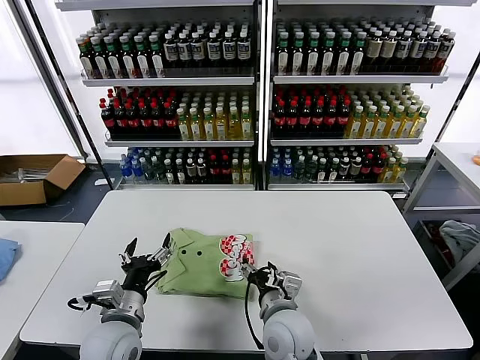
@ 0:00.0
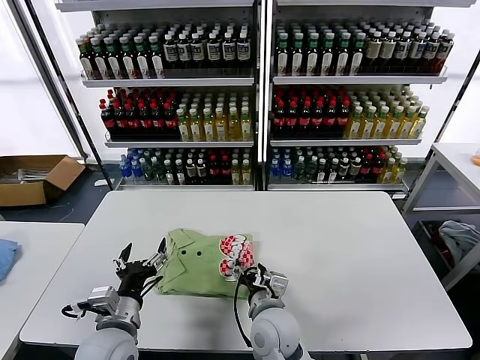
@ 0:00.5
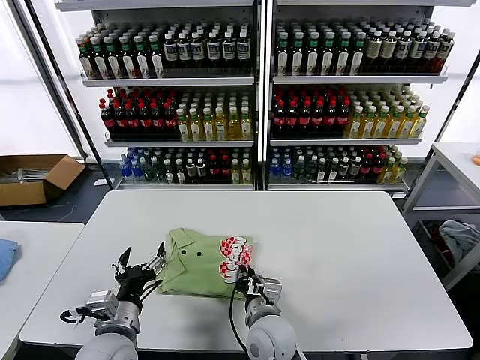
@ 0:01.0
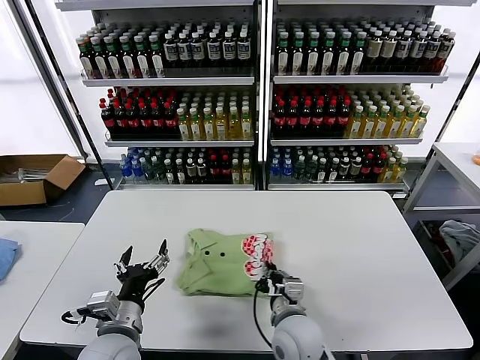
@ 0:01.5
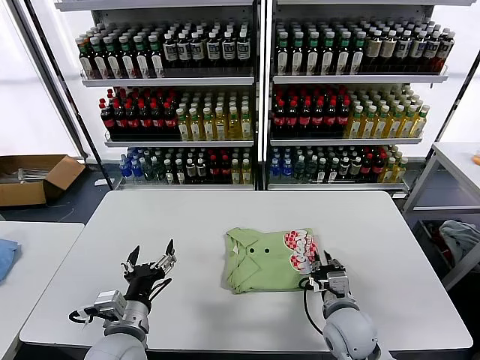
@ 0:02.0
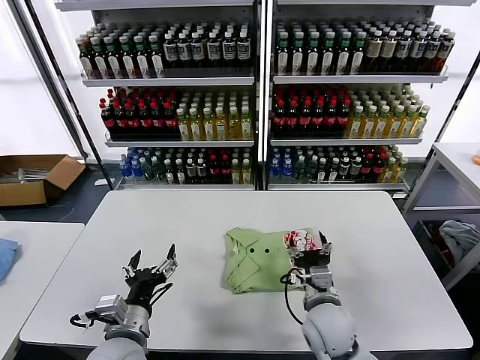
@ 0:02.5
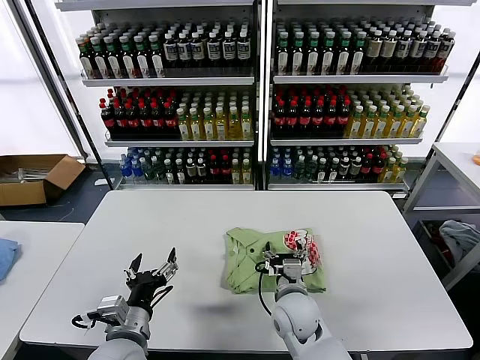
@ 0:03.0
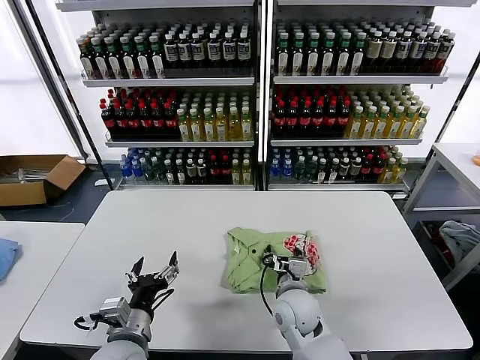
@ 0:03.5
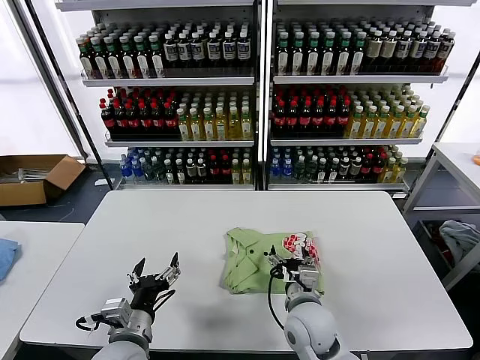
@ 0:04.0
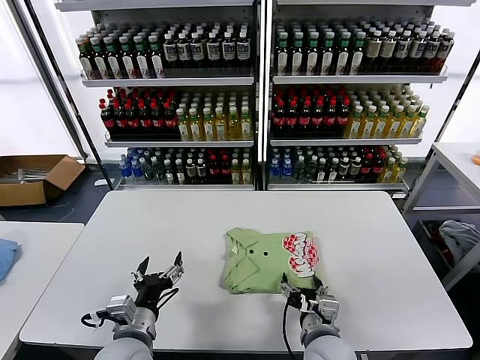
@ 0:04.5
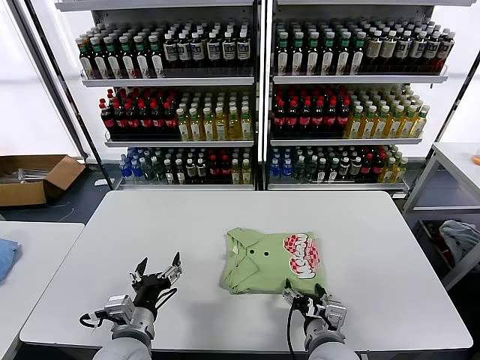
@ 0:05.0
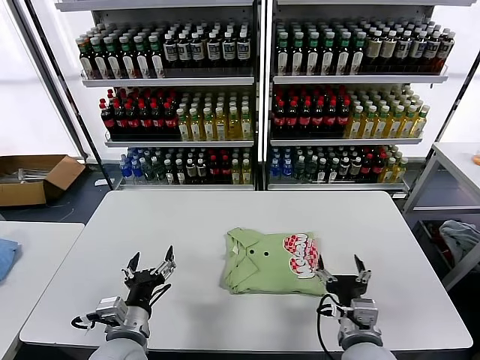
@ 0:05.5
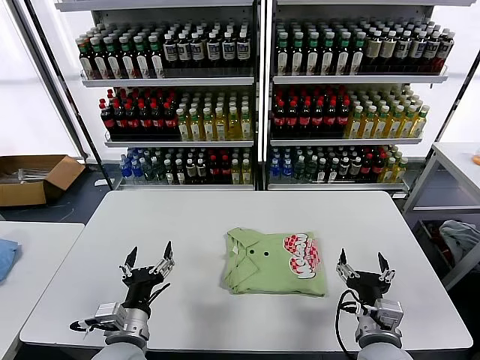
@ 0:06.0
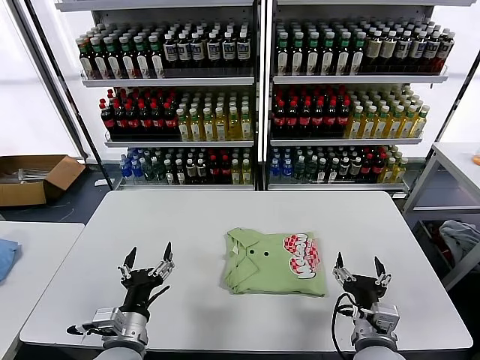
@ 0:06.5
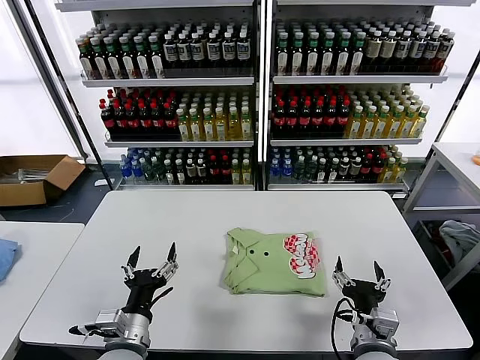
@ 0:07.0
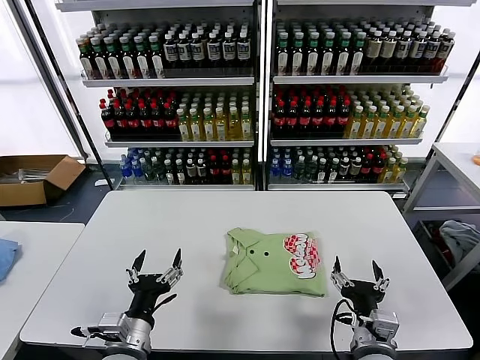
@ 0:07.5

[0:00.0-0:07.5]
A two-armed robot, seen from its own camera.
Task of the whole recording: fold and organize the clothes.
Step, 0:00.0 to 0:05.0: Drag the clothes to the center of the table.
0:00.0 to 0:02.0: The right gripper goes about 10 cm to the right, and closes.
0:02.0 to 0:04.0: The right gripper travels to the left by about 10 cm, and opens up.
0:04.0 to 0:05.5: The right gripper shifts approximately 10 cm backward and to the right.
0:05.5 to 0:07.5: The grippers make only small movements.
